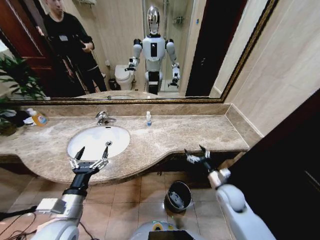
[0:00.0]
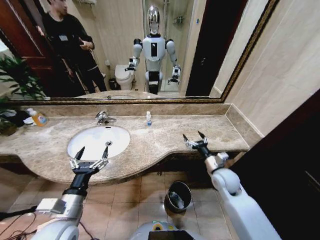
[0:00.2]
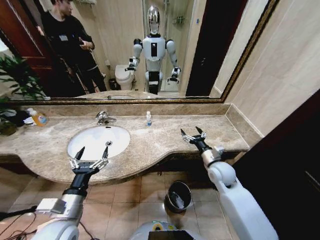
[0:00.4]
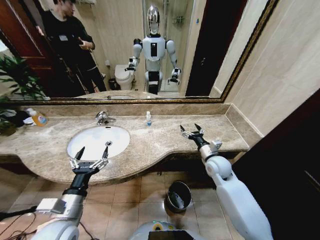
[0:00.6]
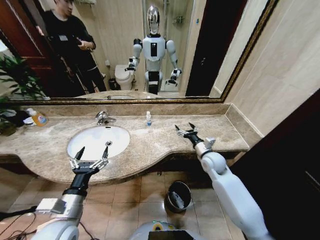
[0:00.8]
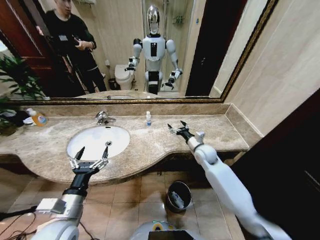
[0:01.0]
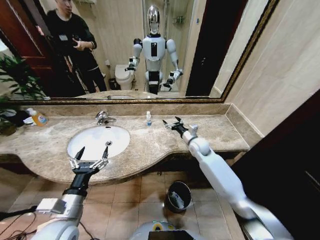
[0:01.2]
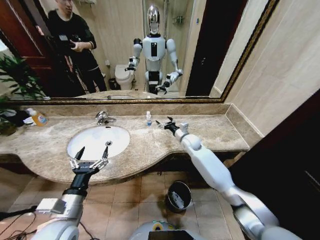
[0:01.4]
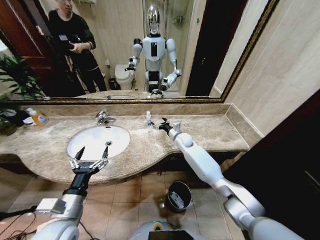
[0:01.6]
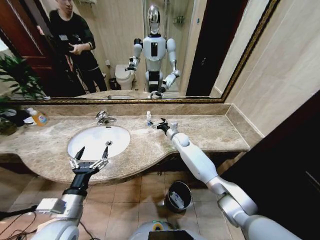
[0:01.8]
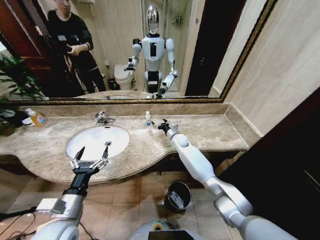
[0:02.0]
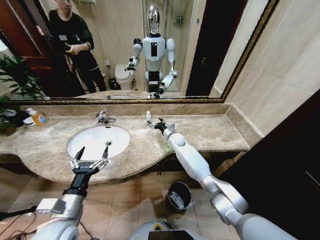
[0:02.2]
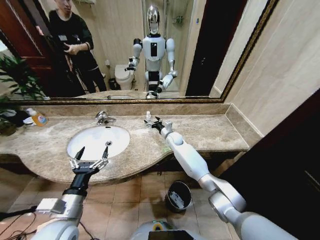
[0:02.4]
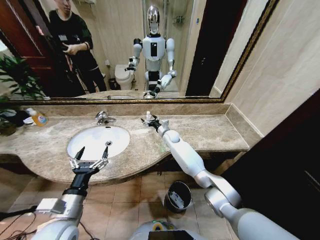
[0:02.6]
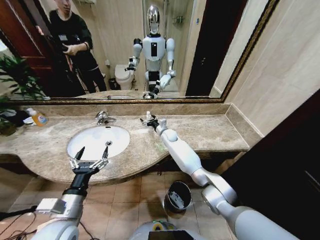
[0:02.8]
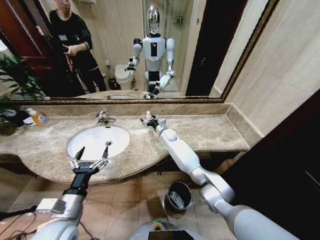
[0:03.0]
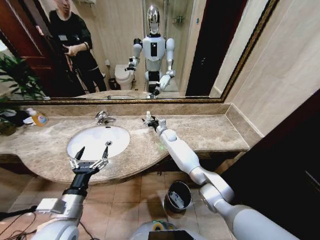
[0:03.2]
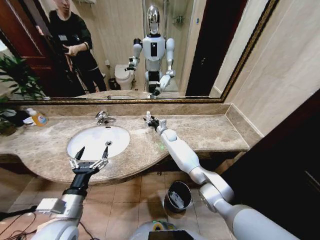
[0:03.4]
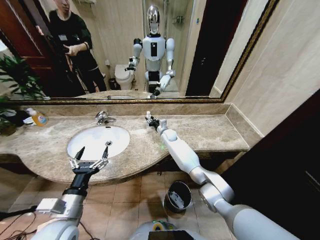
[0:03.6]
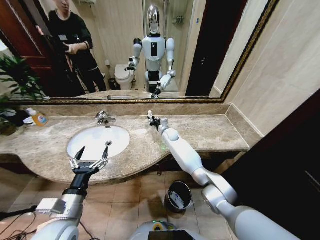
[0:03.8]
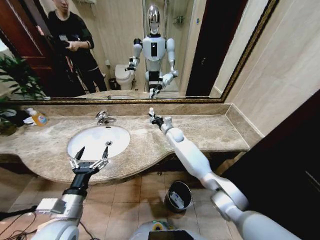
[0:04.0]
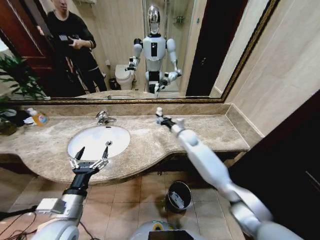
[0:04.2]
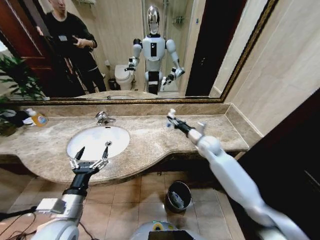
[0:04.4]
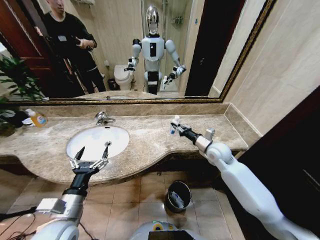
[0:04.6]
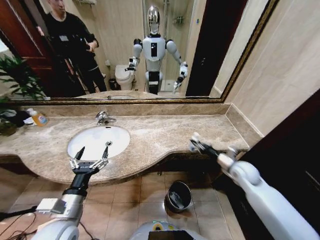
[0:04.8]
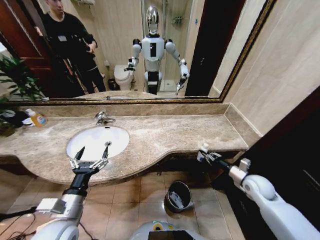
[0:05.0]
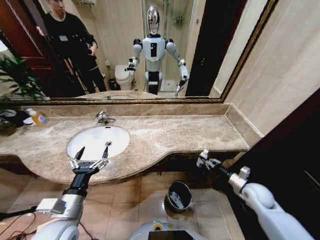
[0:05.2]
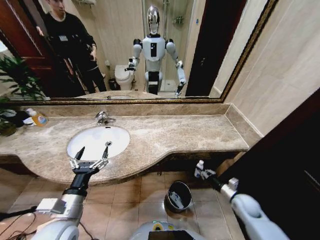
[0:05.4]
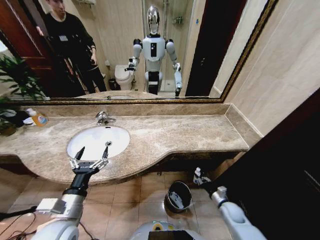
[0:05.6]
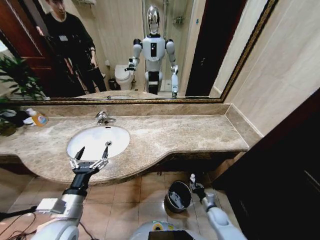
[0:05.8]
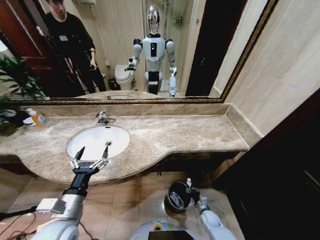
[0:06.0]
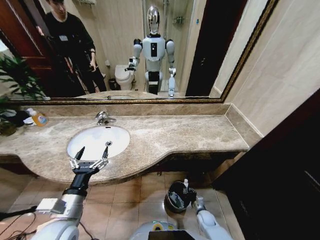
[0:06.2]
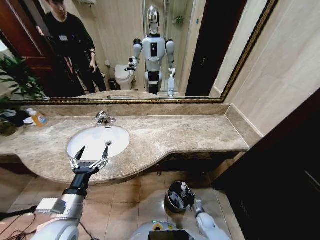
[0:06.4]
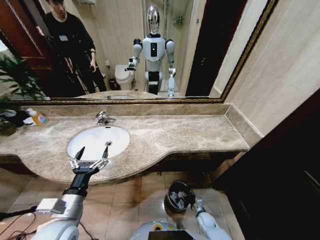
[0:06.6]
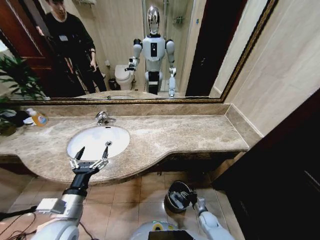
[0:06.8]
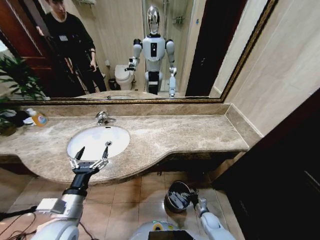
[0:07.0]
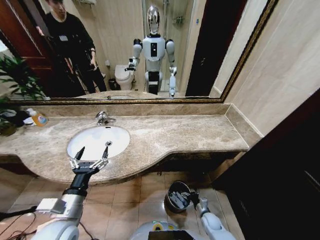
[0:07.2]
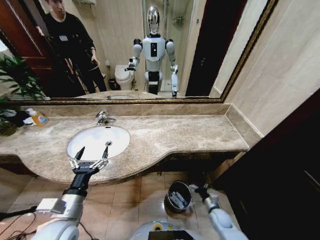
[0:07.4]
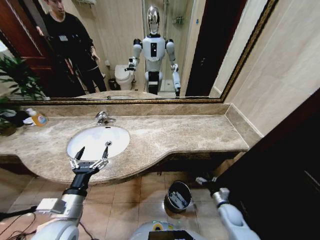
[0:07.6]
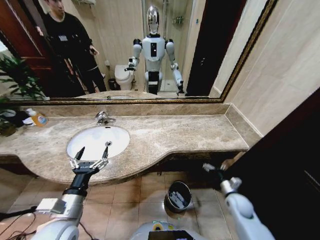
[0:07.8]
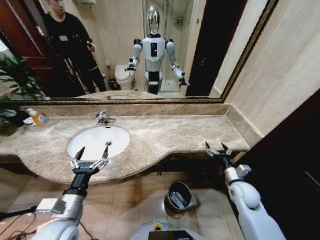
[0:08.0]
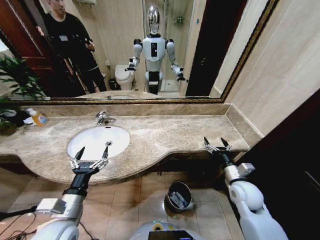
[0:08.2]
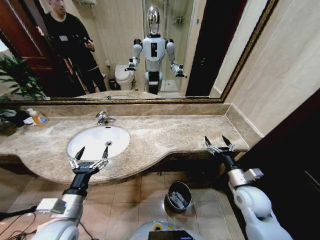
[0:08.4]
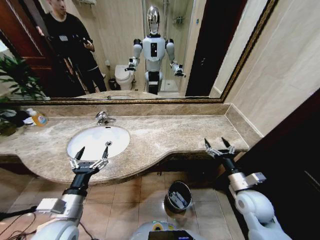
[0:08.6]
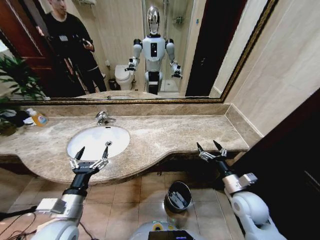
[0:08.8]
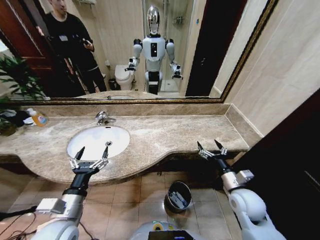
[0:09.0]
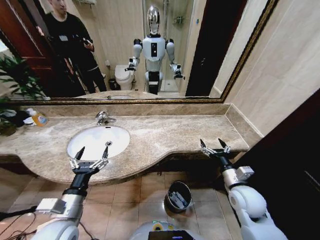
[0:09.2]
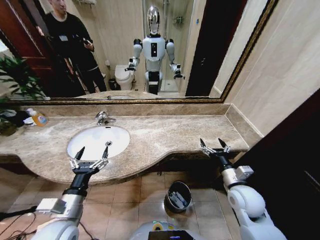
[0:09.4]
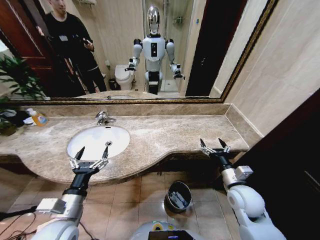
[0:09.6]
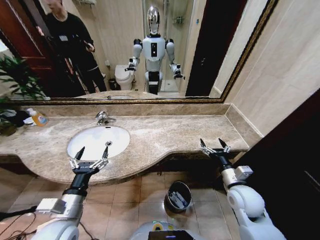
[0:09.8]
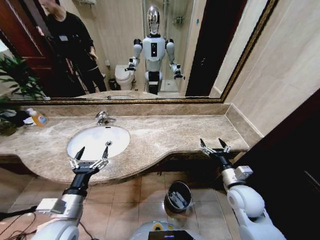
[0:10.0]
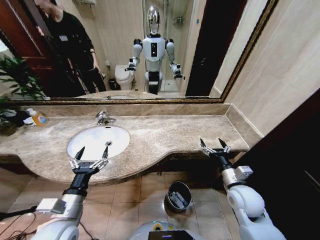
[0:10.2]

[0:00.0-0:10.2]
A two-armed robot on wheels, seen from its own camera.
Task of the whole recording: Pick up the trash from the sink and place it in the trash bin.
0:00.0 to 0:01.4: The right gripper travels forward and to the left by about 25 cm.
0:01.4 to 0:03.0: The right gripper goes some 15 cm to the left and forward.
0:03.0 to 0:04.4: The right gripper shifts roughly 25 cm to the right, backward and upward, and closes.
0:04.4 to 0:05.8: The right gripper goes approximately 40 cm downward and backward.
0:05.8 to 0:07.2: The right gripper opens up.
0:07.2 to 0:08.8: The right gripper shifts about 30 cm upward.
0:08.8 to 0:10.2: The grippers move only a little.
